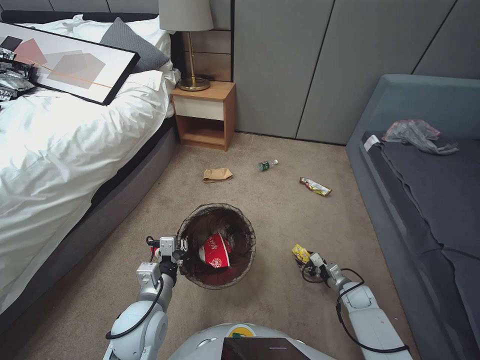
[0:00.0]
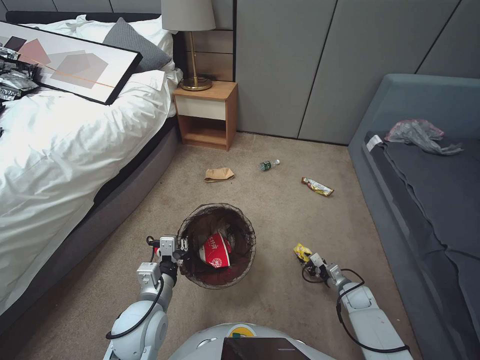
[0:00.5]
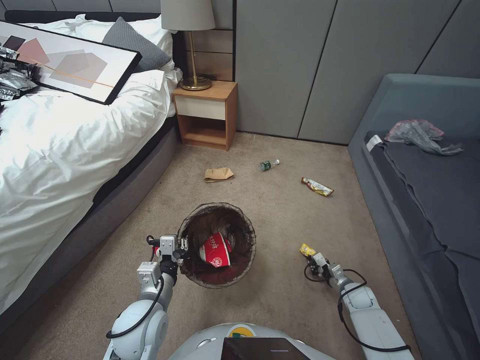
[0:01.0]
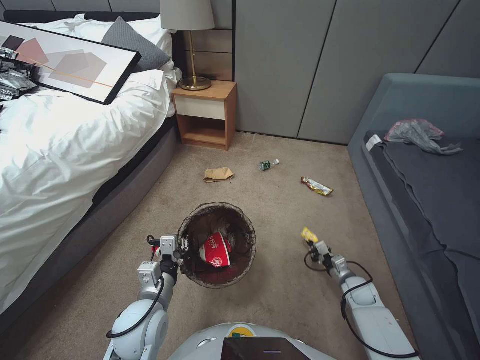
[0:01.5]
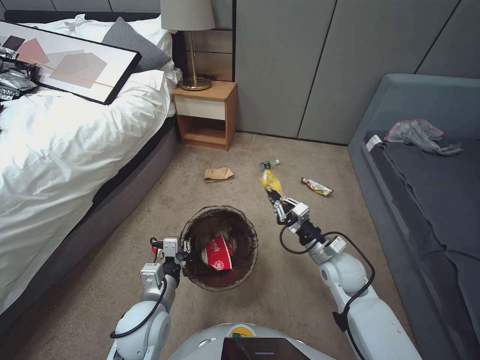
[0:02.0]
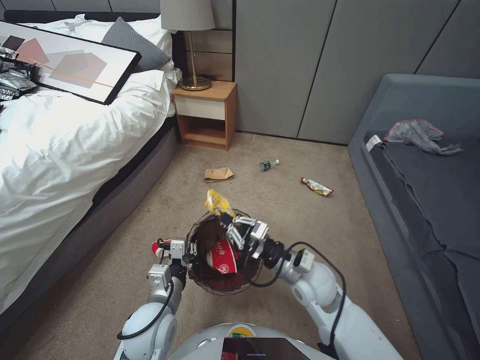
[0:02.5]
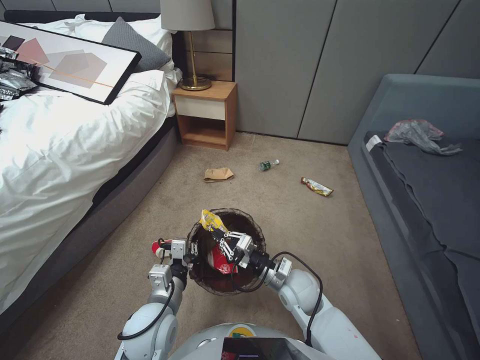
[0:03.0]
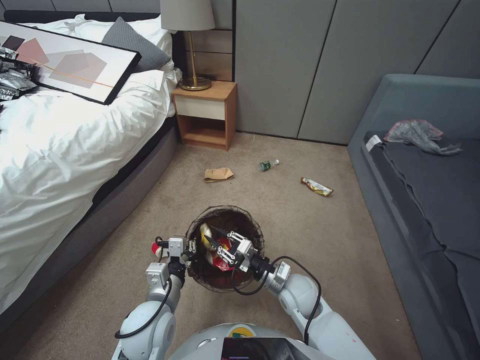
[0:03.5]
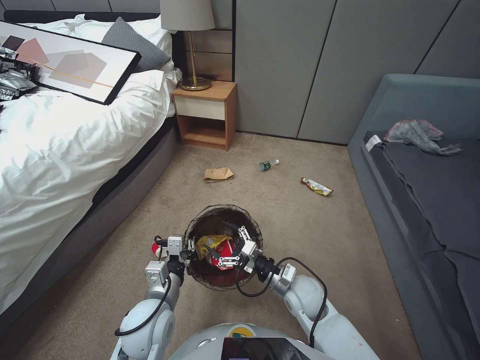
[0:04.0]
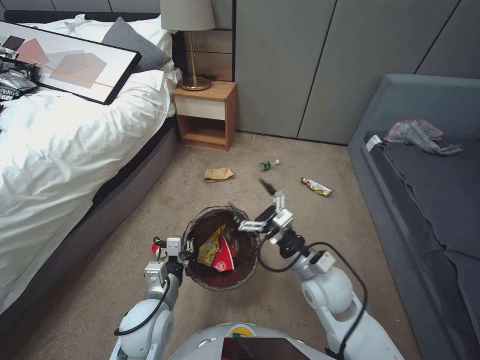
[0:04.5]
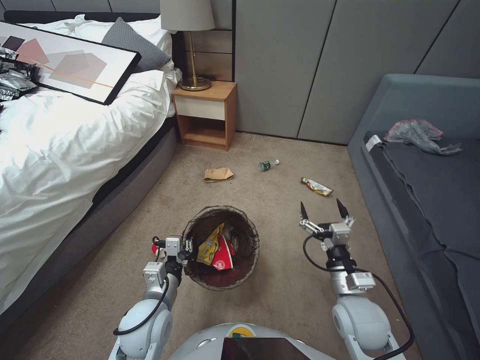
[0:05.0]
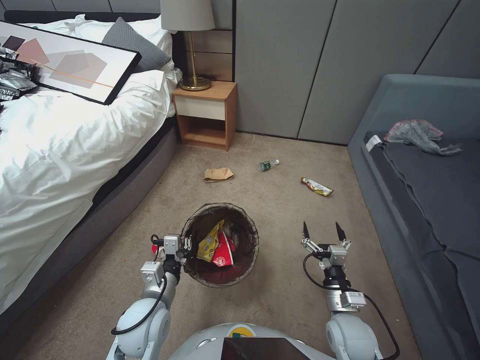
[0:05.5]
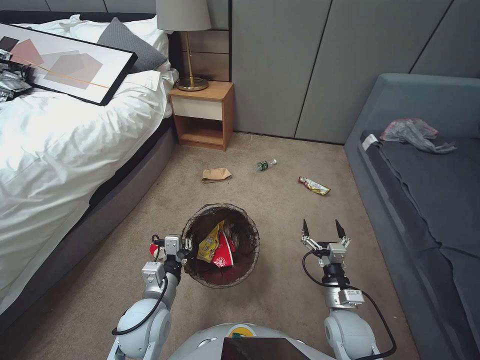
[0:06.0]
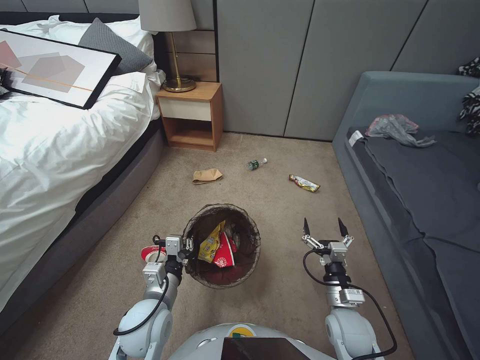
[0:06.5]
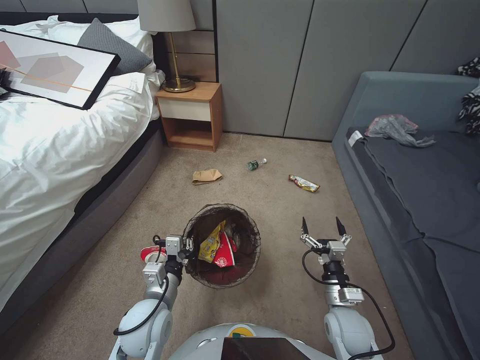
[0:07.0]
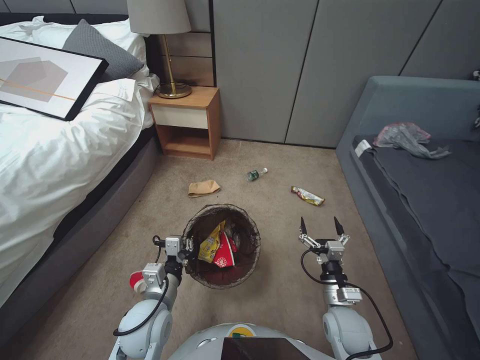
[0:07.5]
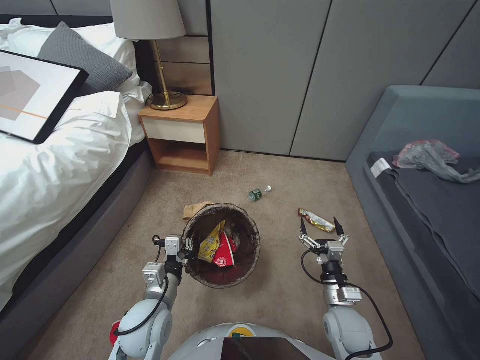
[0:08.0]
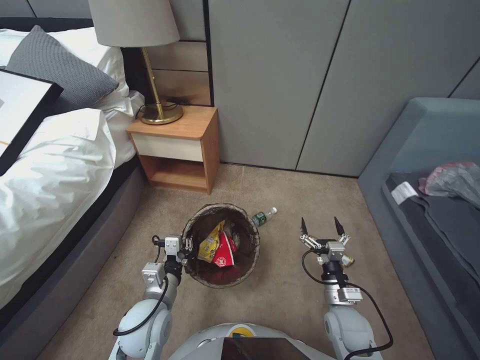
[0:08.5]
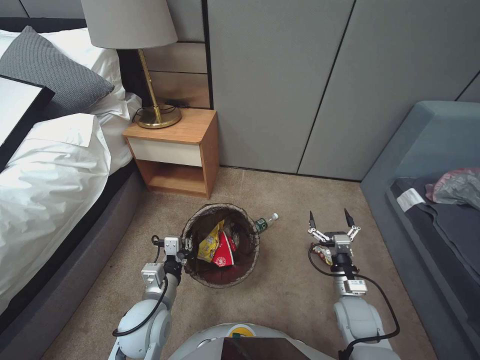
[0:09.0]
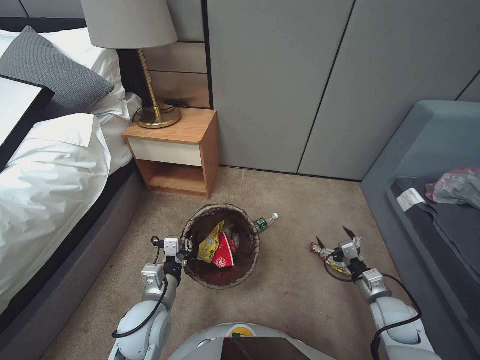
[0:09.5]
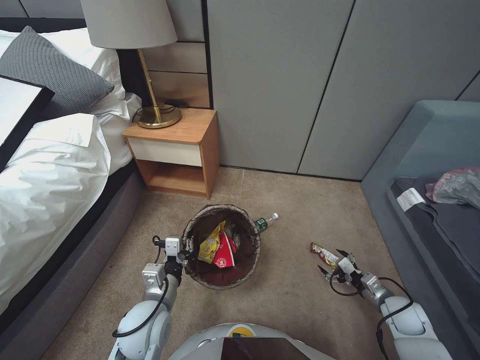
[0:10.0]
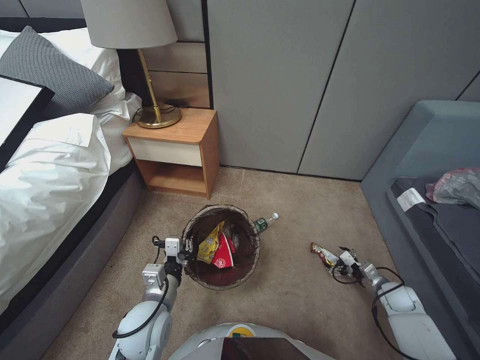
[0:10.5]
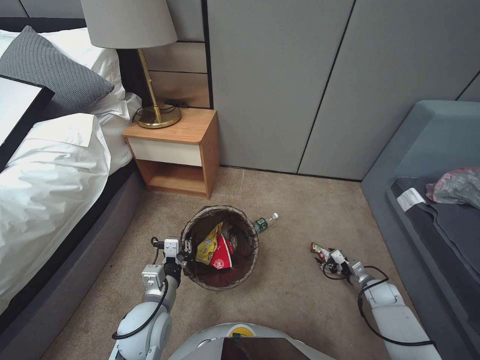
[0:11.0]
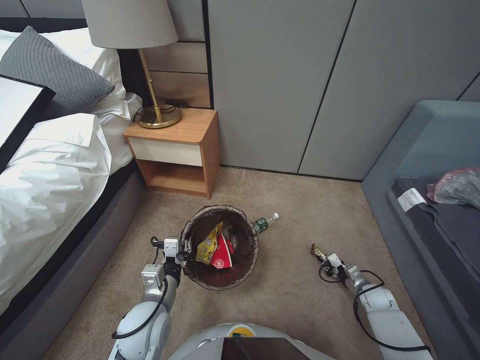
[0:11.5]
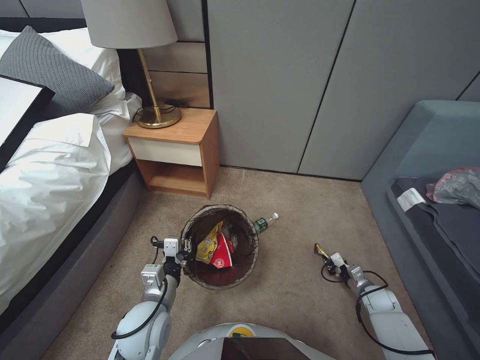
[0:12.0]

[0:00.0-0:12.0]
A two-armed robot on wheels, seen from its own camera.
Task of the whole recording: Pick up the trash bin, then pick up the garbage from the floor and place it into the trash bin.
0:00.0 to 0:02.0: The right gripper moves upward and to the left, some 25 cm, and closes.
0:02.0 to 0:04.0: The right gripper heads to the left, covering some 10 cm, and opens.
0:04.0 to 0:06.0: The right gripper moves to the right and backward, roughly 10 cm, and travels upward and back again, roughly 10 cm each way.
0:08.0 to 0:10.0: The right gripper shifts approximately 20 cm to the right.
0:10.0 to 0:12.0: The right gripper travels downward and forward by roughly 10 cm, and closes its fingers.

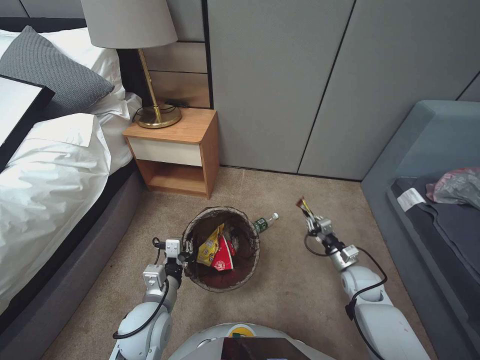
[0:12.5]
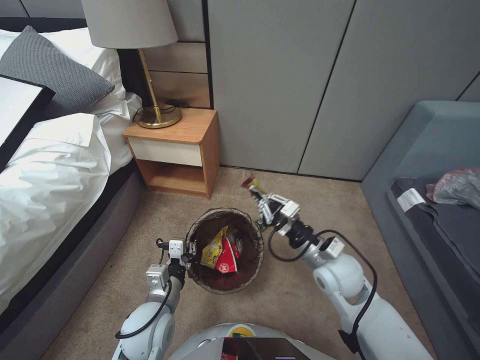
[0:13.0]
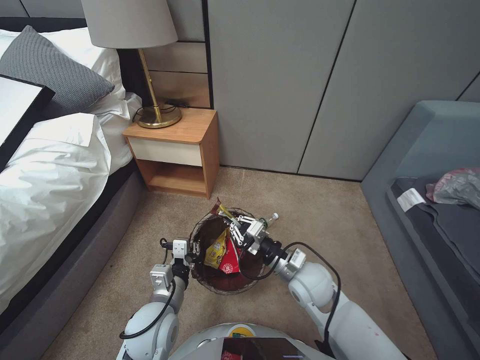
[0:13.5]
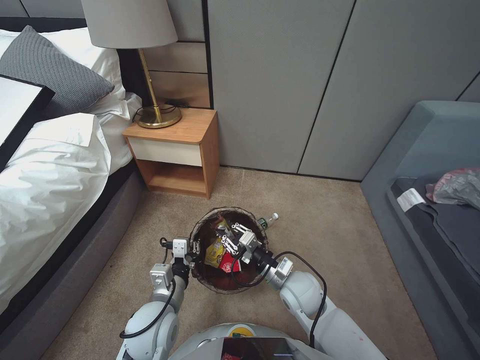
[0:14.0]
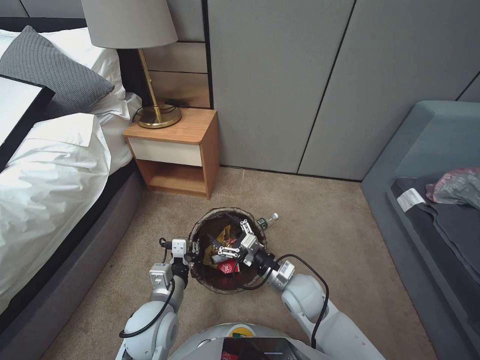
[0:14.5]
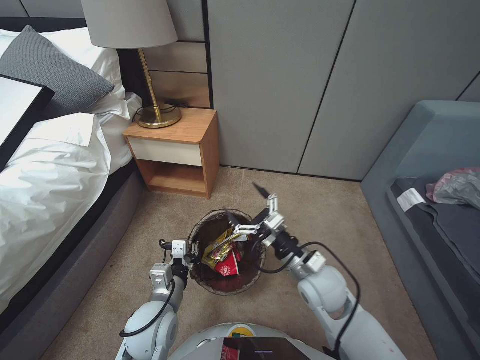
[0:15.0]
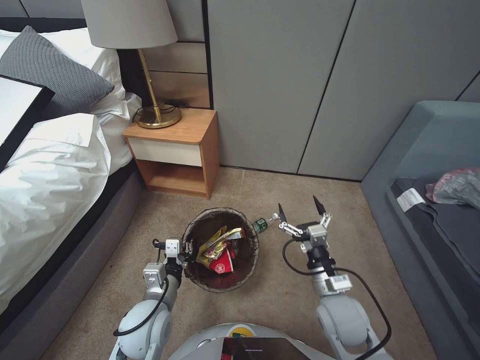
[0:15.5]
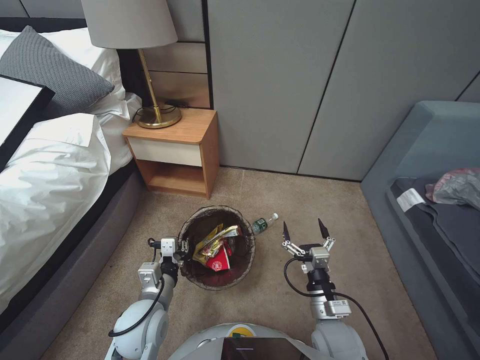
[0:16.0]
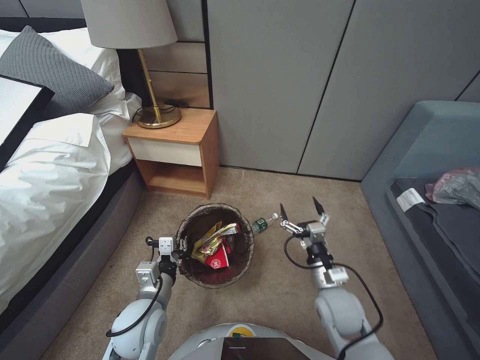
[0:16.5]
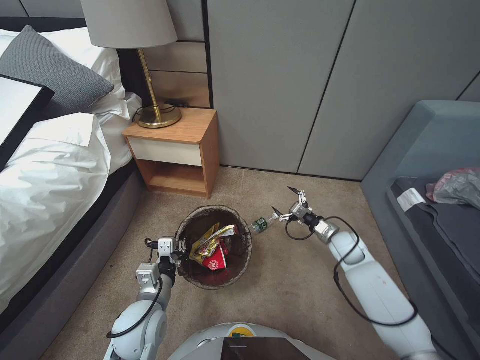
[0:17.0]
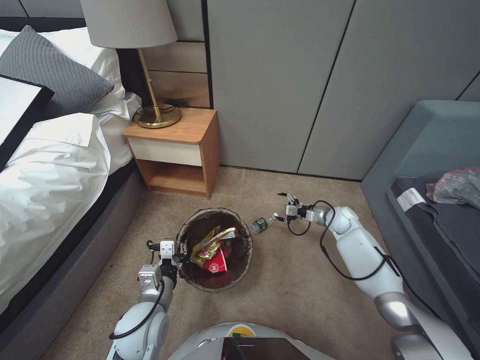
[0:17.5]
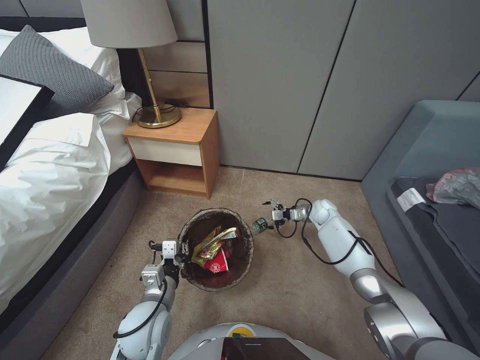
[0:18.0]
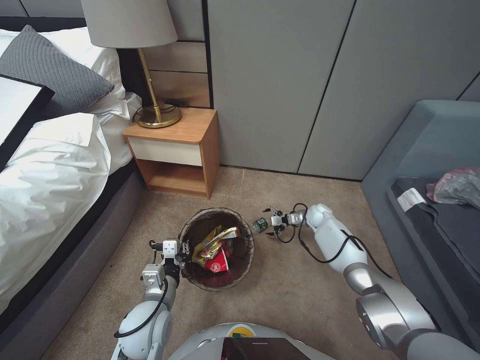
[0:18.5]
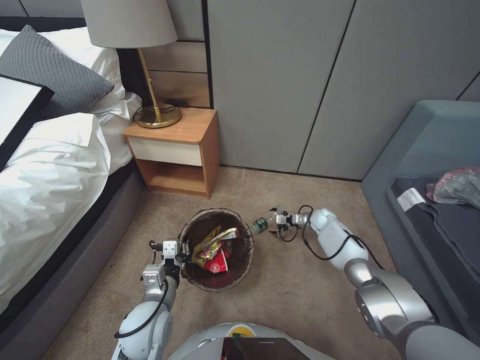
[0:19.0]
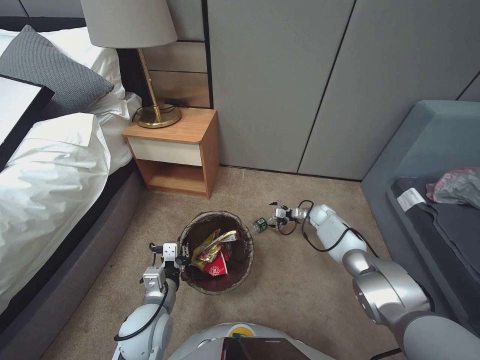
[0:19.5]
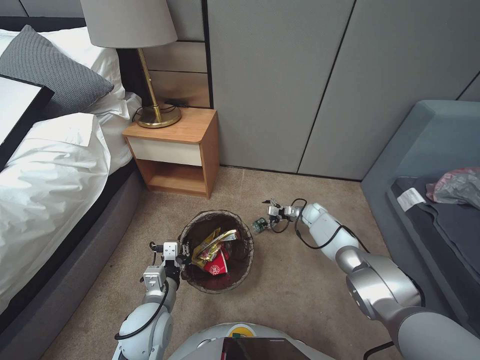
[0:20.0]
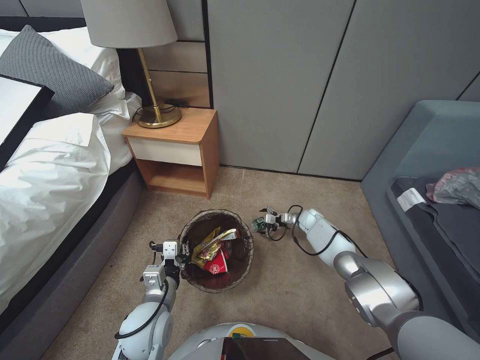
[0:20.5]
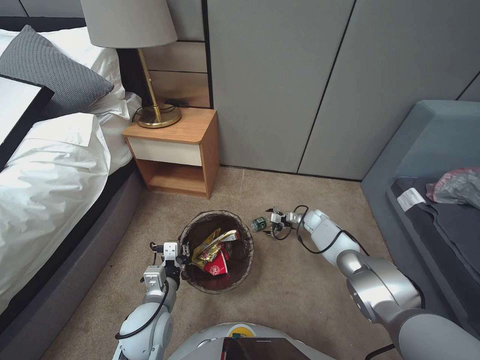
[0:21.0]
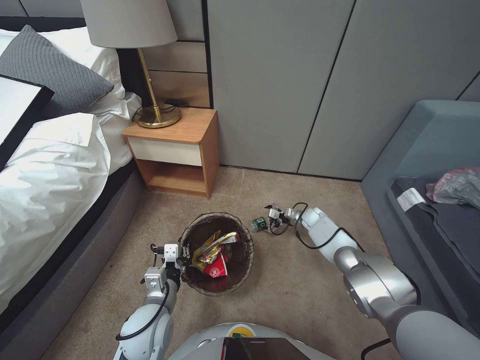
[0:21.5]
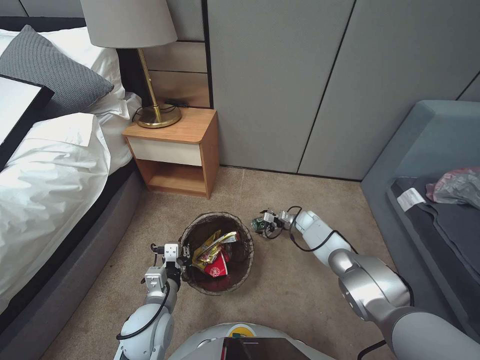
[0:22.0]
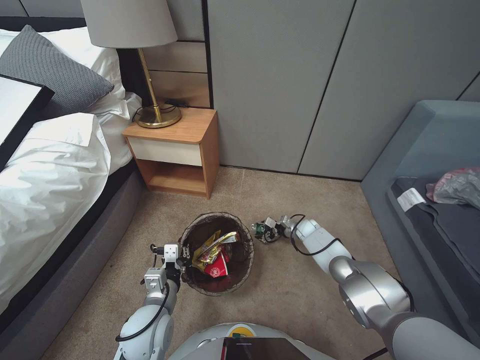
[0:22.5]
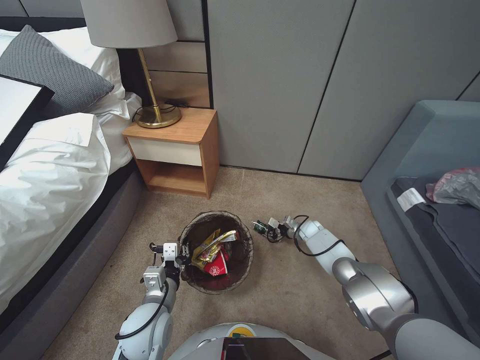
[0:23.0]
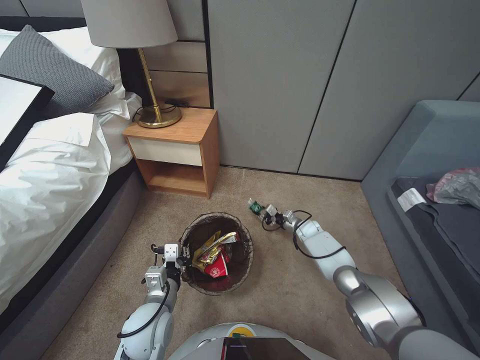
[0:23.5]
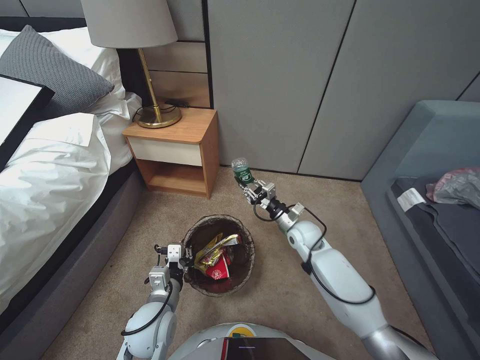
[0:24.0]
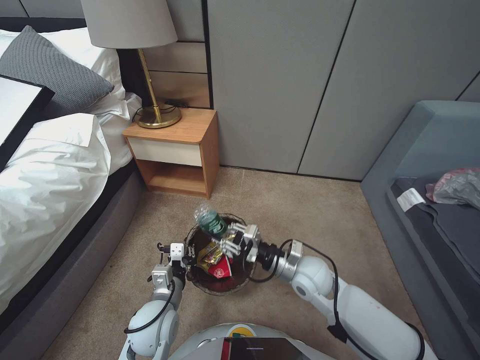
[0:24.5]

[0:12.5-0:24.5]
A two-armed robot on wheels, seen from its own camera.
Task of the whole recording: Pick up the trash bin, then pick up the garbage from the floor and place it into the trash bin.
0:12.5 to 0:14.5: The right gripper travels to the left by about 25 cm, and opens up.
0:14.5 to 0:16.5: The right gripper heads backward and to the right, covering some 10 cm.
0:16.5 to 0:18.5: The right gripper heads forward, covering some 35 cm.
0:18.5 to 0:20.5: The right gripper changes place by some 5 cm.
0:20.5 to 0:22.5: The right gripper shifts by some 5 cm.
0:22.5 to 0:24.5: The right gripper heads backward, upward and to the left, covering about 30 cm, and closes.

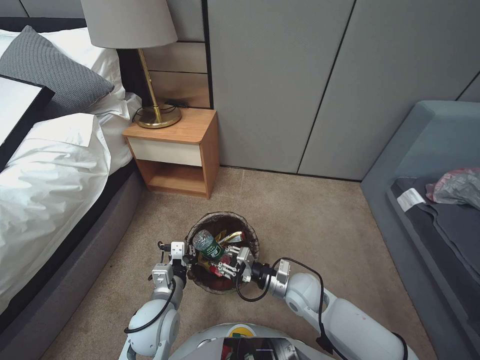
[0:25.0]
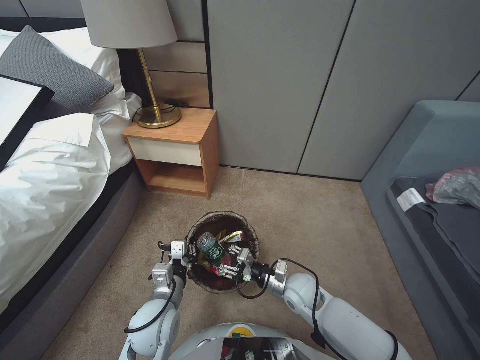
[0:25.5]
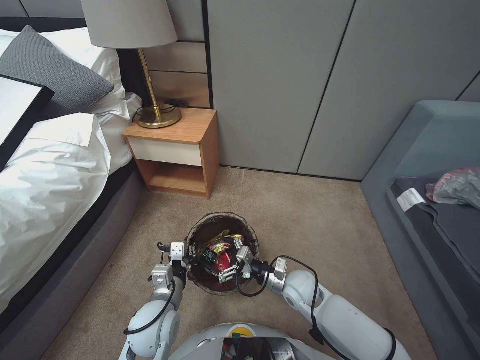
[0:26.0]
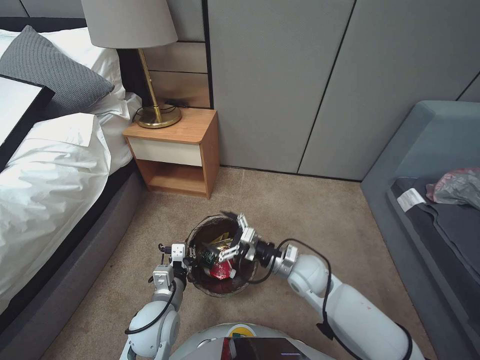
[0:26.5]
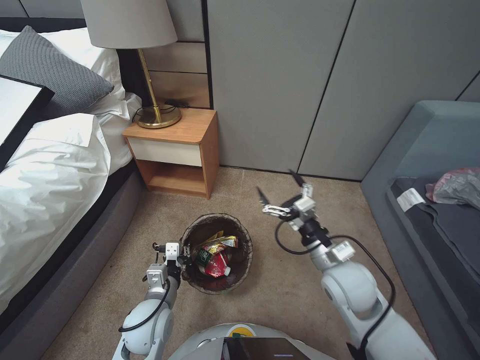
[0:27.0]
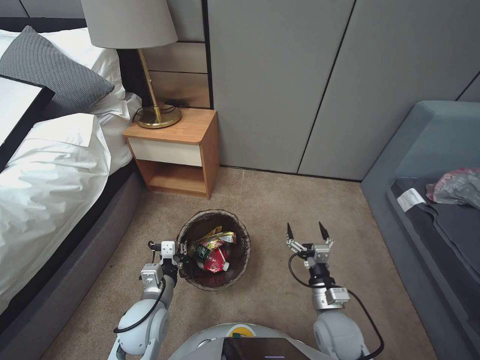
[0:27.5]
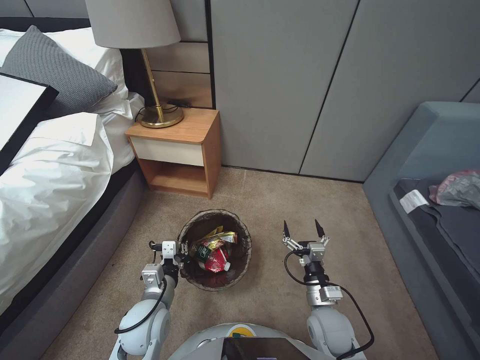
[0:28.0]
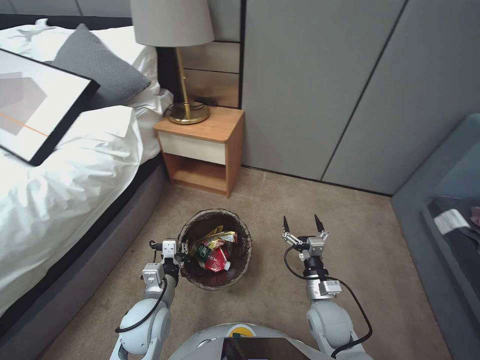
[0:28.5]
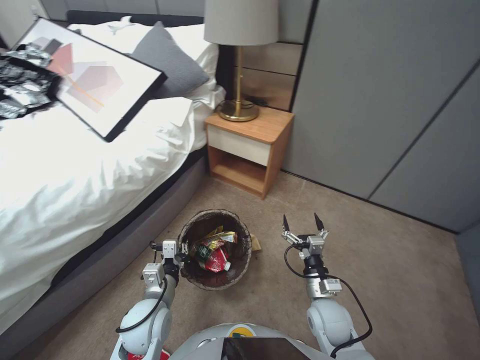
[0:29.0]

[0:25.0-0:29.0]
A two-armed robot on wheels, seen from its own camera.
Task of the whole recording: Pick up the trash bin, then pick up the garbage from the floor and place it into the trash bin.
0:25.0 to 0:27.0: The right gripper shifts roughly 15 cm upward, and opens up.
0:27.0 to 0:29.0: The right gripper is displaced downward by about 15 cm.
